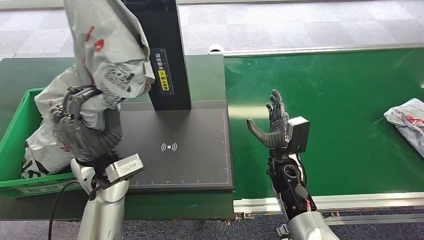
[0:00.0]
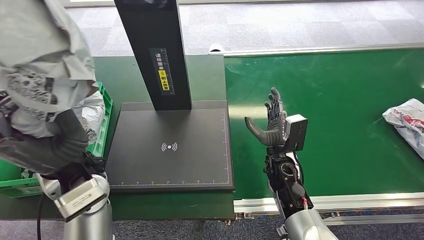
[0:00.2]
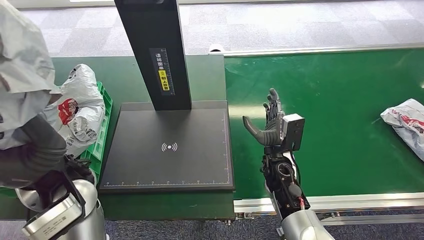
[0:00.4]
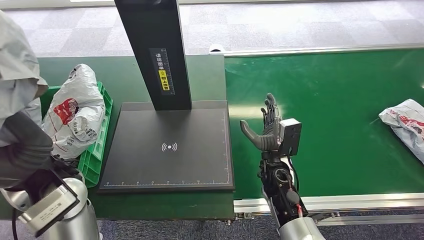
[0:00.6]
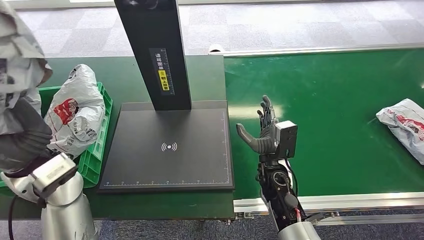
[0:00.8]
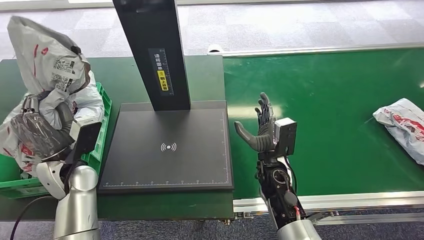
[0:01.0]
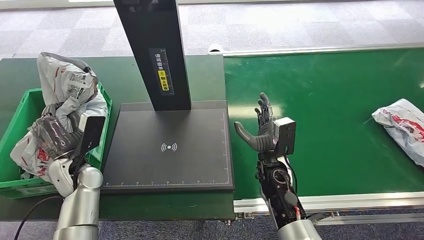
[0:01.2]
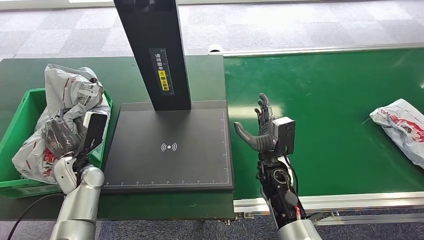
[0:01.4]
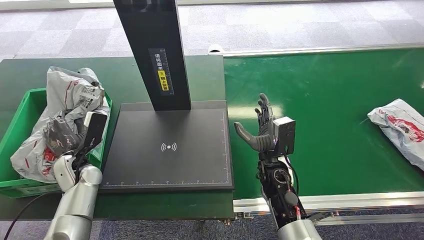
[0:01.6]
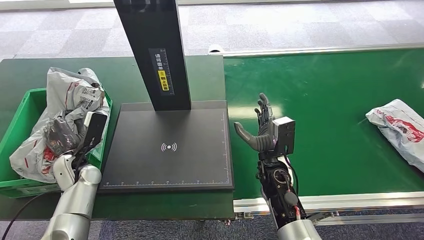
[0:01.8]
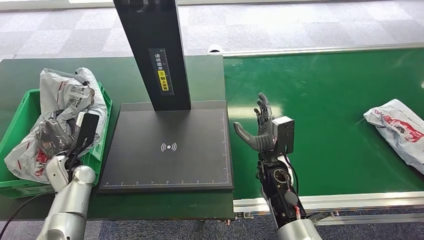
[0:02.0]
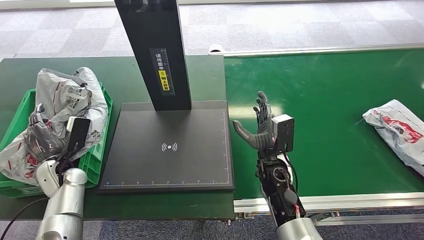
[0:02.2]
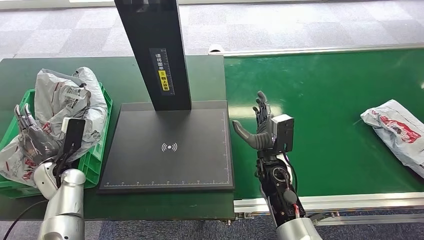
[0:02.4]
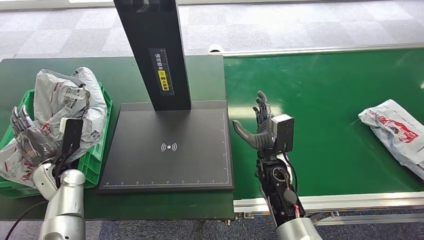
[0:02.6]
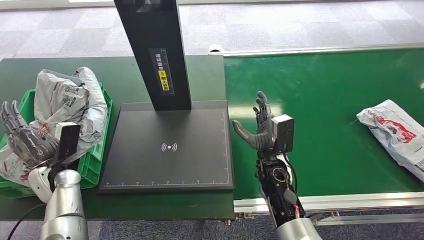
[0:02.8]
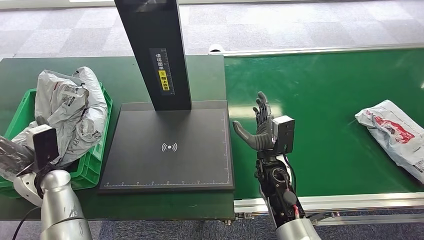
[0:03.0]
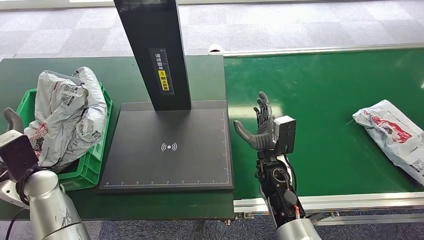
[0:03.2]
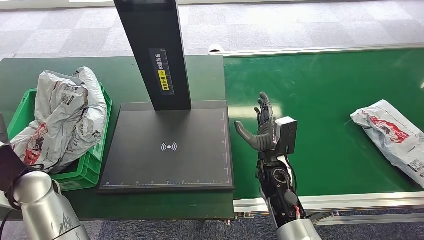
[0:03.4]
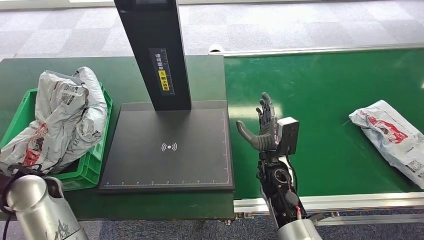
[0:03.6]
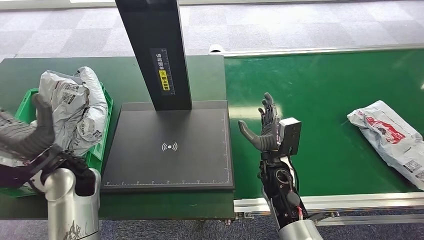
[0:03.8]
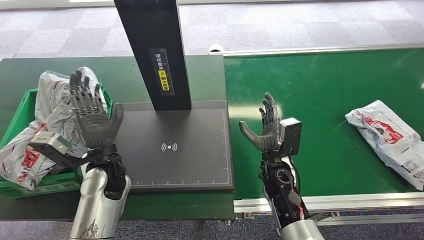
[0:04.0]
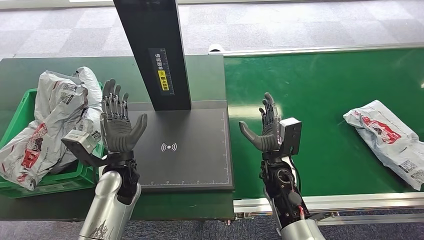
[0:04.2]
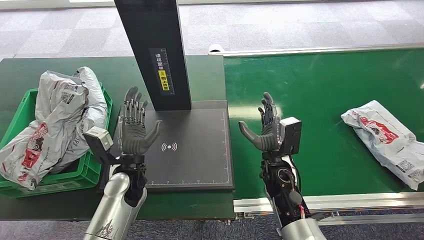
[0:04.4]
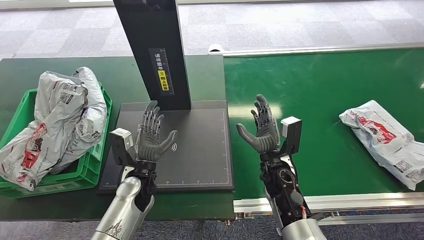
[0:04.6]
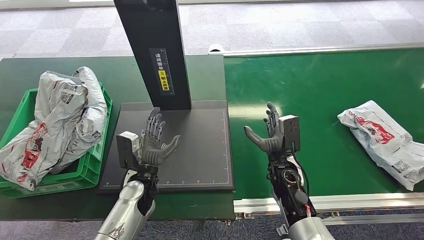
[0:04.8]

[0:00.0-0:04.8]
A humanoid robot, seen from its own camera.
Step, 0:00.6 to 0:04.8: Place the package into the parcel locker.
0:01.6 to 0:03.2: The left hand travels upward by roughly 10 cm.
0:03.2 to 0:04.8: The left hand is displaced to the right and downward by approximately 25 cm.
